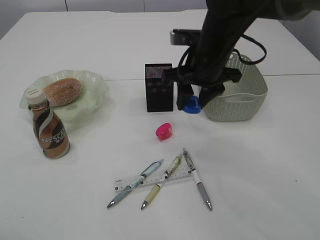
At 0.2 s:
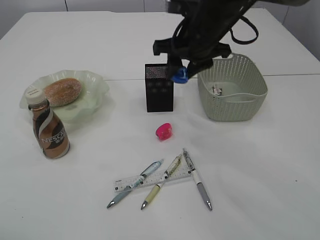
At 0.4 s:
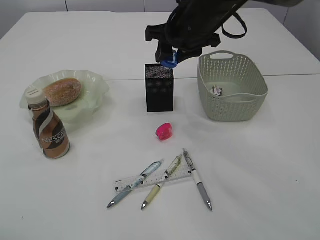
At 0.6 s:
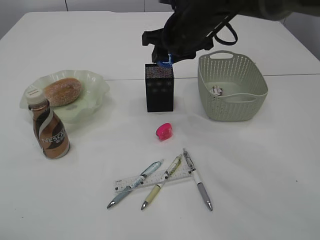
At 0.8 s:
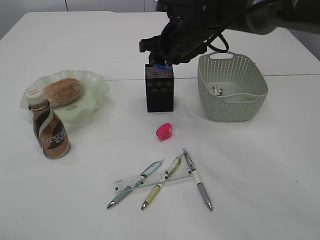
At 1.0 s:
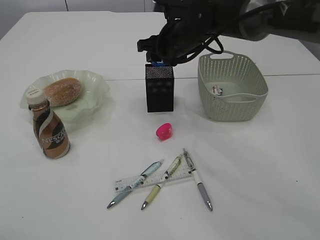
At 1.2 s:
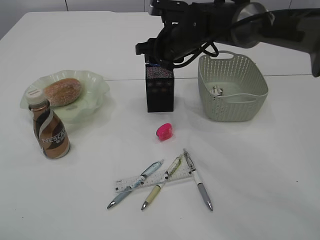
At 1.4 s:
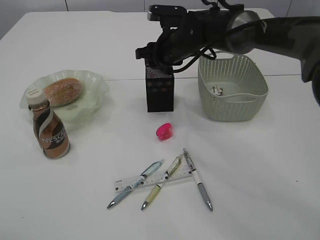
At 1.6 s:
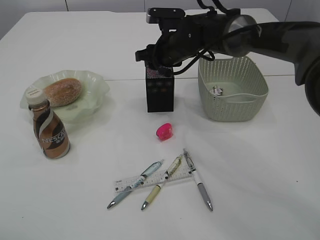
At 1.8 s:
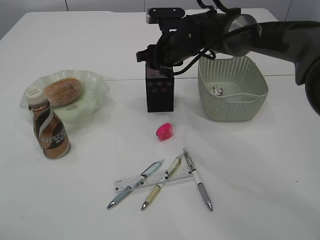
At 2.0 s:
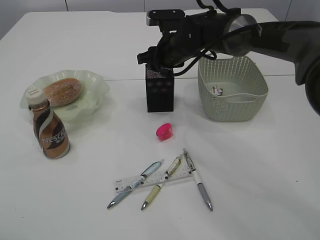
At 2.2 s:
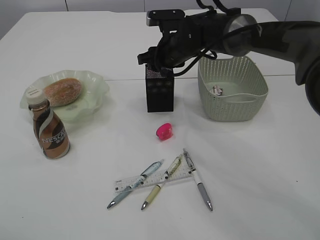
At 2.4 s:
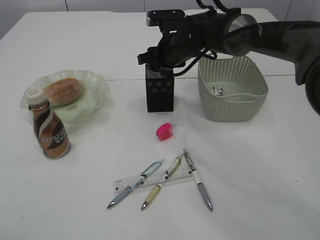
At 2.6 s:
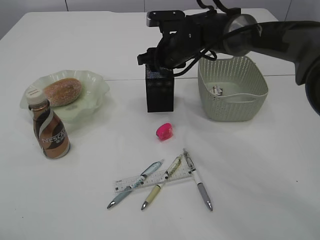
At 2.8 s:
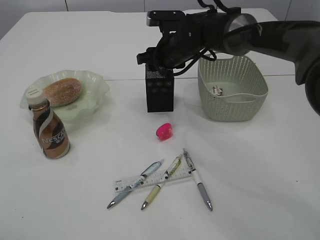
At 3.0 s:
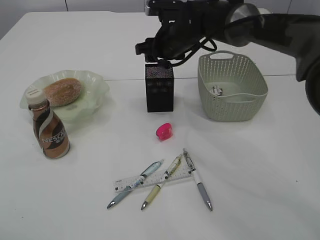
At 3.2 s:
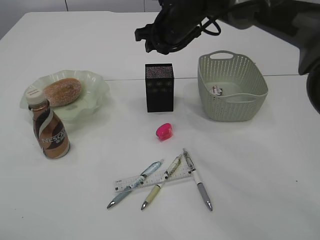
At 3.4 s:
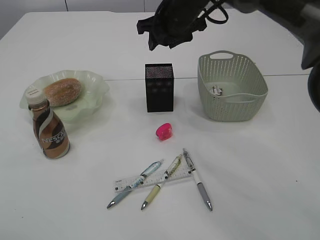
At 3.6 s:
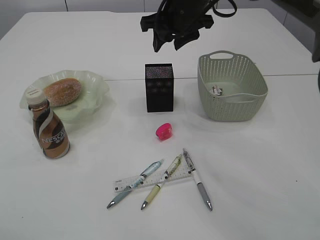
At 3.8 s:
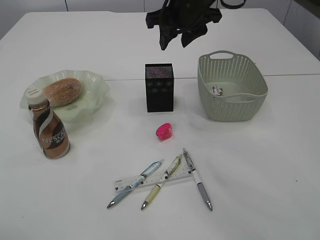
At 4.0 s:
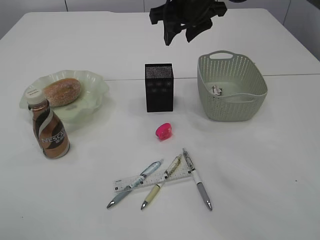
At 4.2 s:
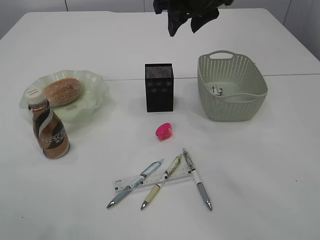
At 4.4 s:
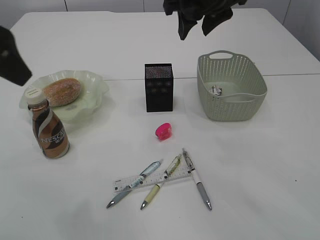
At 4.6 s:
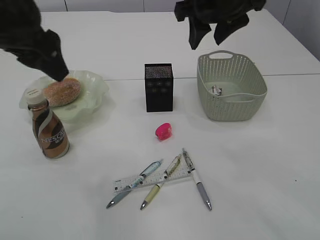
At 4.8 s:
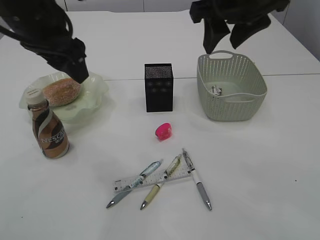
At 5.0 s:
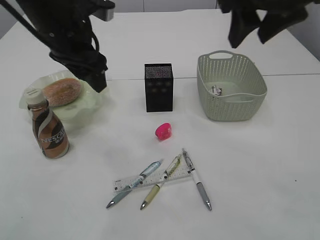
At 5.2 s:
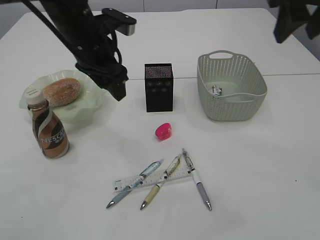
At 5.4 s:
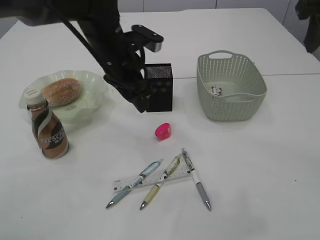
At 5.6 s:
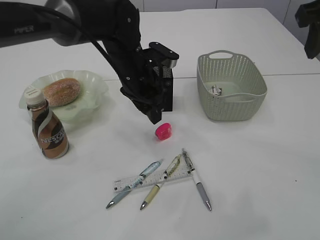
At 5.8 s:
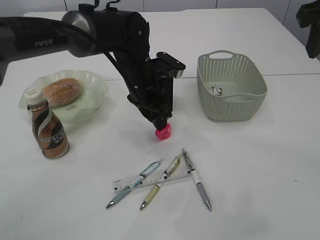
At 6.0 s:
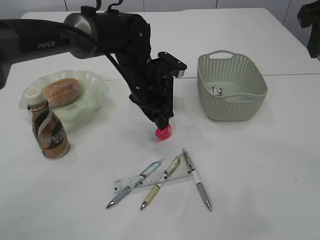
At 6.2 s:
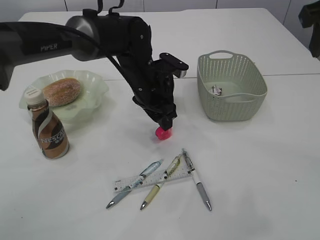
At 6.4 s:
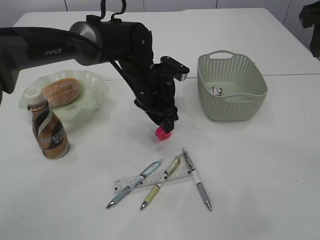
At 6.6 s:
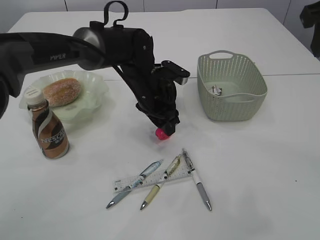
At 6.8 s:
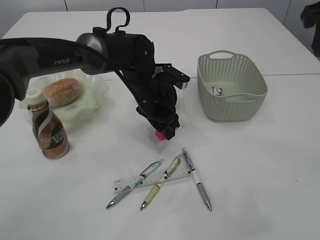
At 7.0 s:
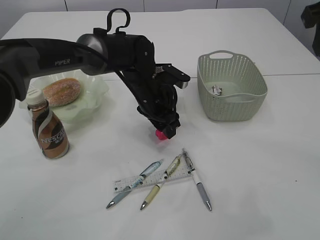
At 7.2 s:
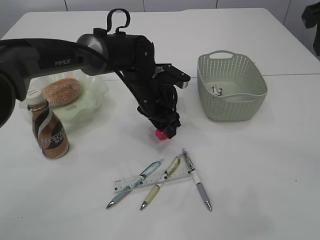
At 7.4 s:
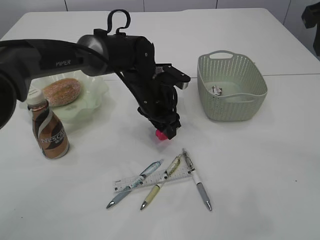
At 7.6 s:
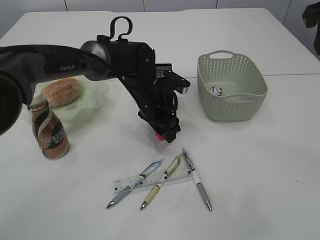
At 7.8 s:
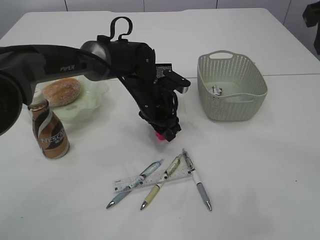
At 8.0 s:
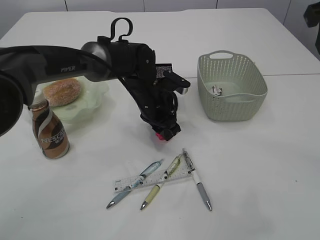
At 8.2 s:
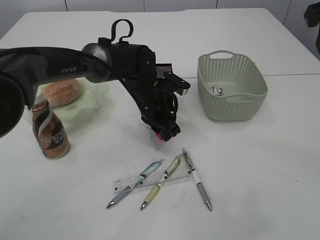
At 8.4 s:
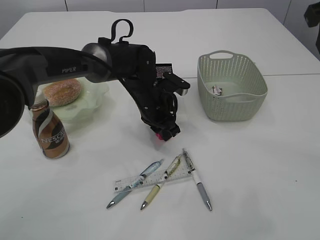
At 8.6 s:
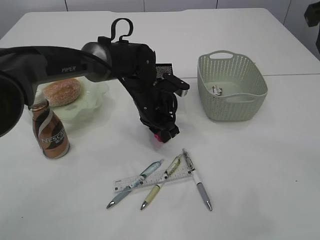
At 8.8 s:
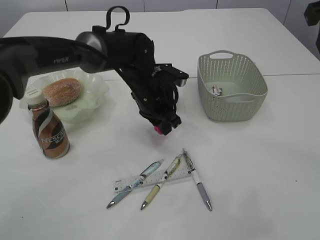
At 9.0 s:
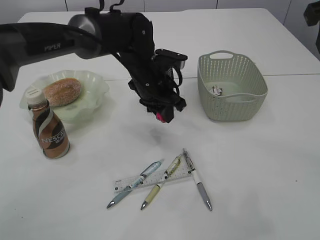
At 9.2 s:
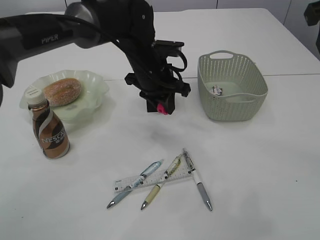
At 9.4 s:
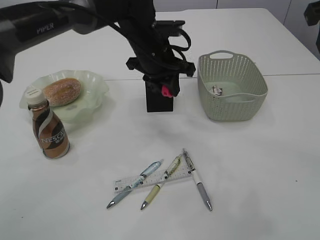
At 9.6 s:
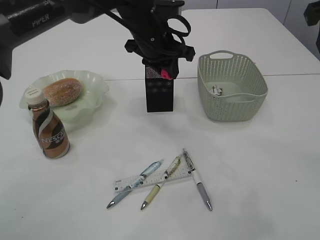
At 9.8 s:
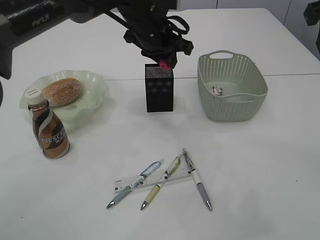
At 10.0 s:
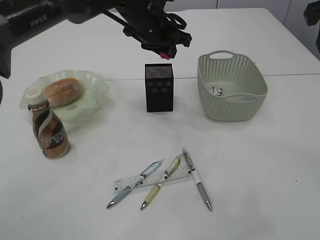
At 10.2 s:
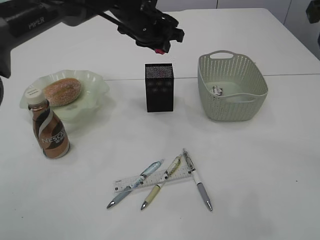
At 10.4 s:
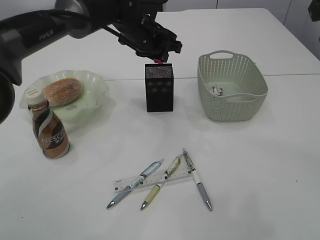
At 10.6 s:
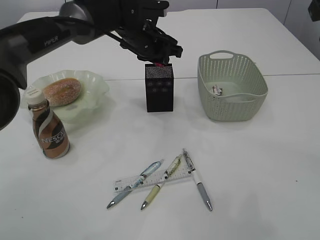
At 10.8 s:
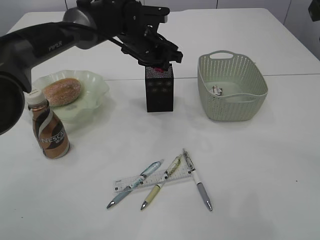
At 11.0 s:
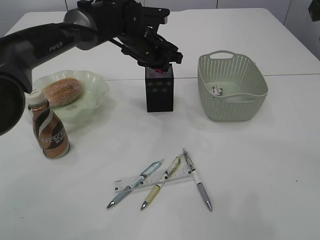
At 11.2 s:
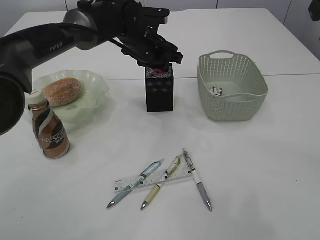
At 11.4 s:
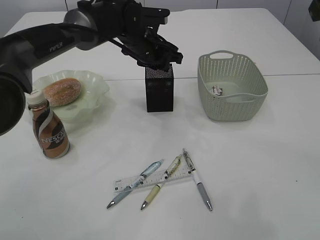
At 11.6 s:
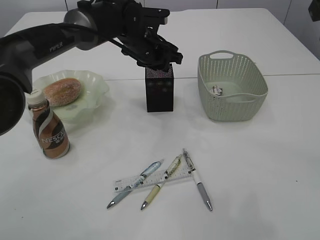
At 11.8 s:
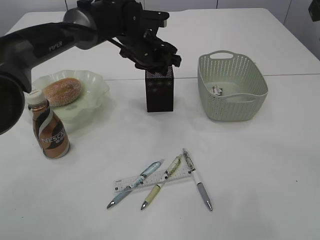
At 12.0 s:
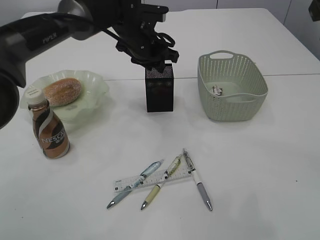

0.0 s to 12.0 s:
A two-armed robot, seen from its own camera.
Step, 0.0 to 3.2 s: Place the blue pencil sharpener into the pen holder.
Step, 3.4 to 9.0 s: Pick up the red pencil sharpener.
0.0 to 1.6 s: The right gripper moves forward, approximately 10 cm.
1.6 to 3.0 s: The grippers stay close to where they were, moving slightly.
3.0 to 4.4 s: The left gripper heads forward and to the right, covering approximately 10 cm, while the right gripper heads upward and backward, covering approximately 15 cm.
4.4 to 6.0 s: The right gripper heads to the right and backward, covering roughly 20 cm, while the left gripper travels downward, to the right and forward by some 30 cm.
6.0 to 7.6 s: The left gripper changes place by roughly 5 cm.
7.6 to 9.0 s: The left gripper closes up.
9.0 to 10.4 s: The left gripper travels forward and upward by some 10 cm.
10.4 to 12.0 s: The grippers move only a little.

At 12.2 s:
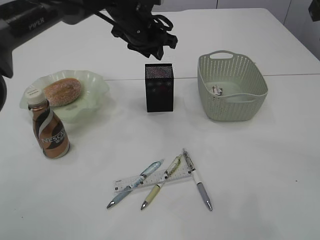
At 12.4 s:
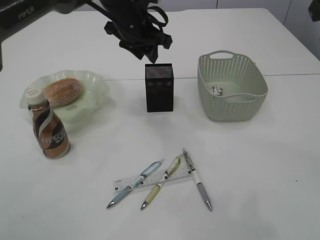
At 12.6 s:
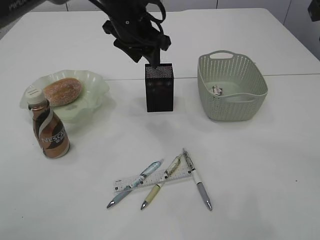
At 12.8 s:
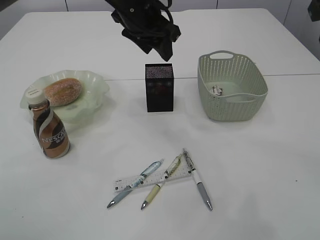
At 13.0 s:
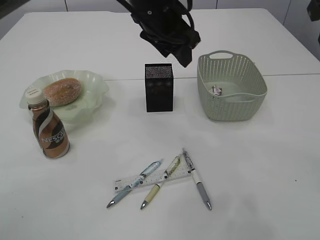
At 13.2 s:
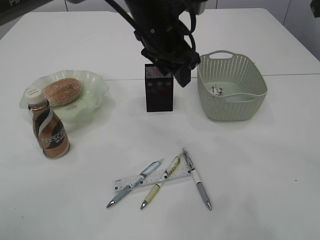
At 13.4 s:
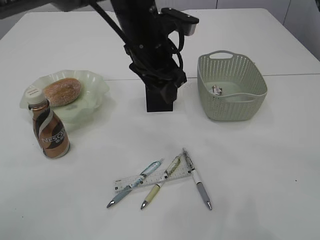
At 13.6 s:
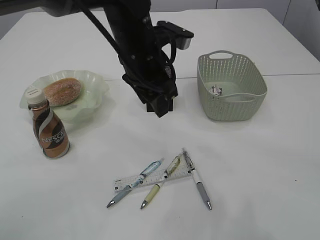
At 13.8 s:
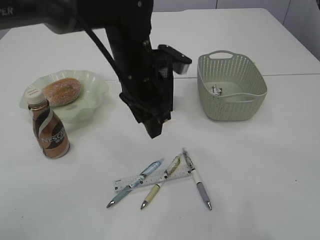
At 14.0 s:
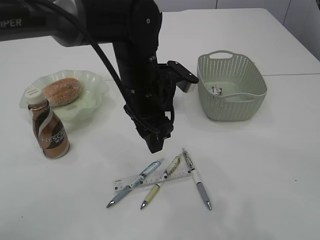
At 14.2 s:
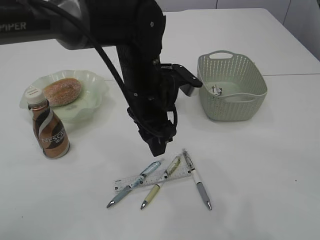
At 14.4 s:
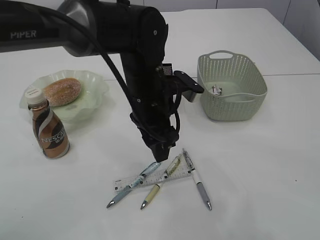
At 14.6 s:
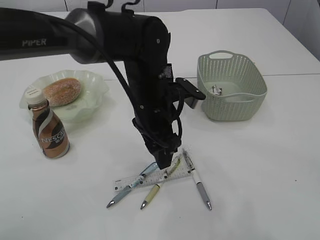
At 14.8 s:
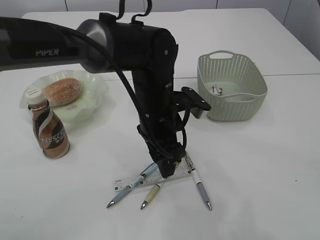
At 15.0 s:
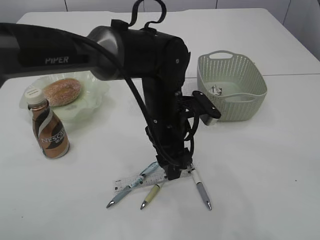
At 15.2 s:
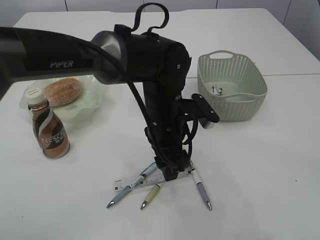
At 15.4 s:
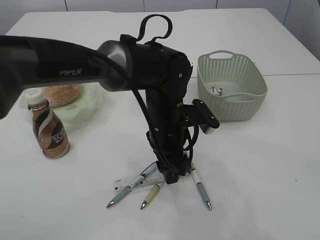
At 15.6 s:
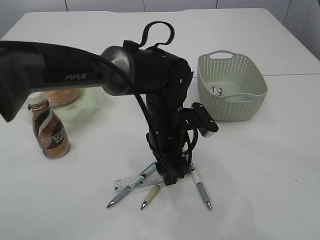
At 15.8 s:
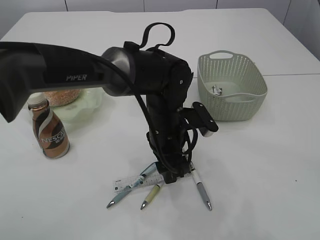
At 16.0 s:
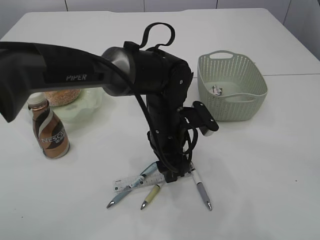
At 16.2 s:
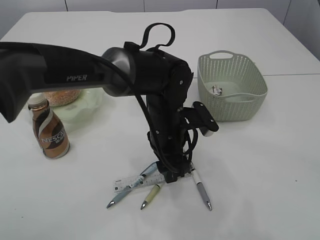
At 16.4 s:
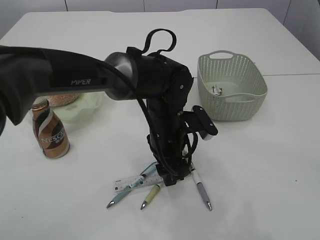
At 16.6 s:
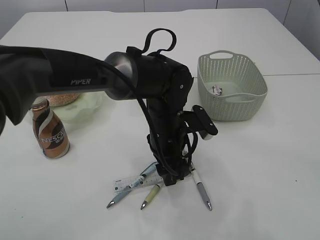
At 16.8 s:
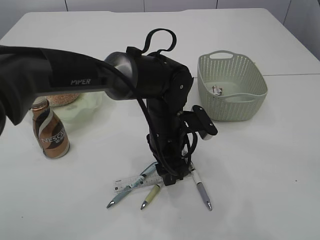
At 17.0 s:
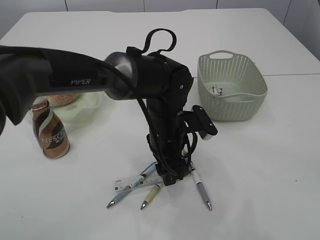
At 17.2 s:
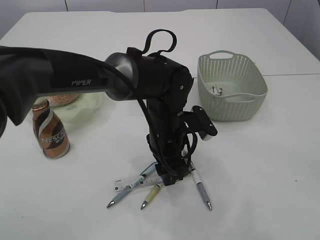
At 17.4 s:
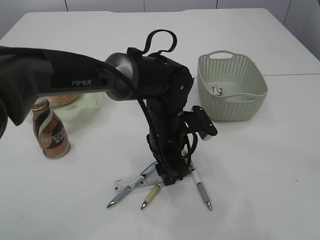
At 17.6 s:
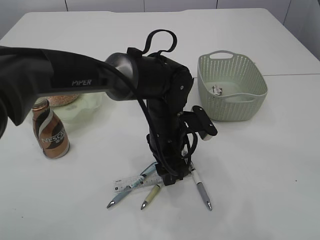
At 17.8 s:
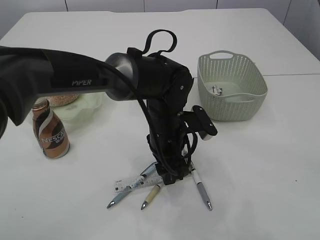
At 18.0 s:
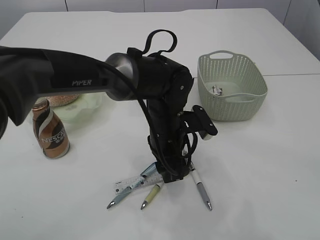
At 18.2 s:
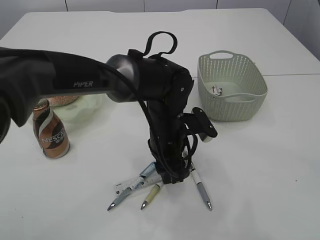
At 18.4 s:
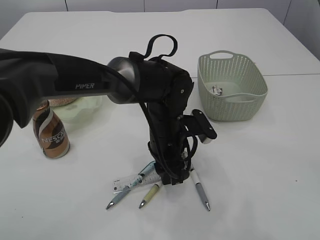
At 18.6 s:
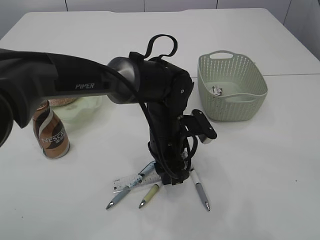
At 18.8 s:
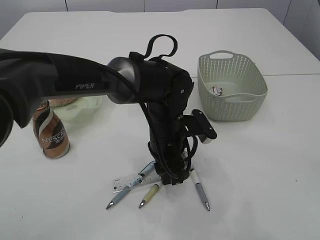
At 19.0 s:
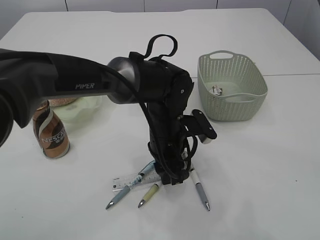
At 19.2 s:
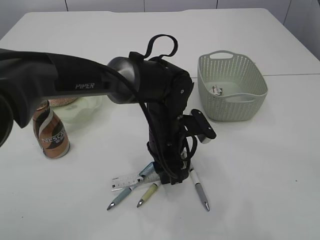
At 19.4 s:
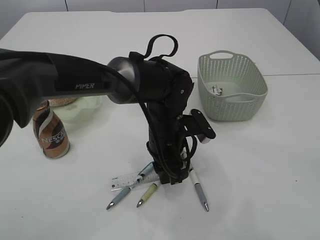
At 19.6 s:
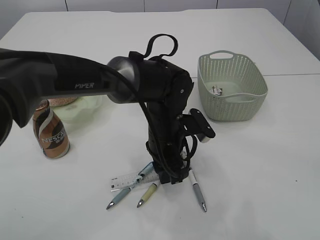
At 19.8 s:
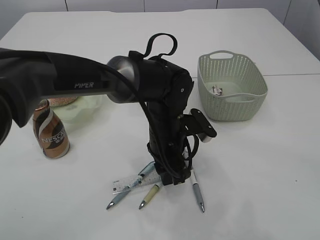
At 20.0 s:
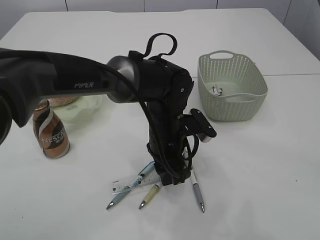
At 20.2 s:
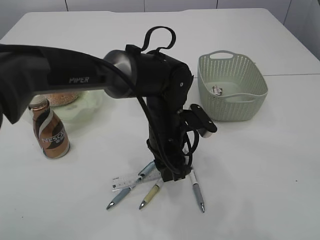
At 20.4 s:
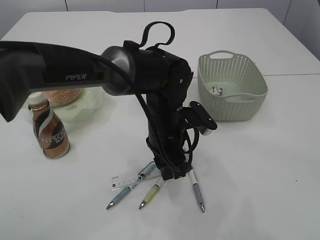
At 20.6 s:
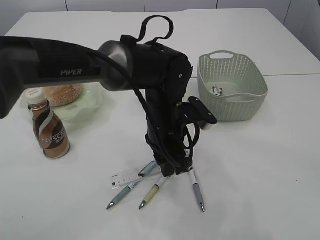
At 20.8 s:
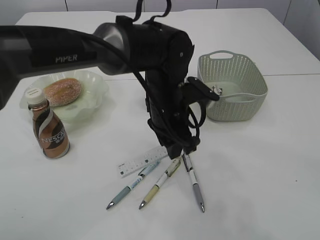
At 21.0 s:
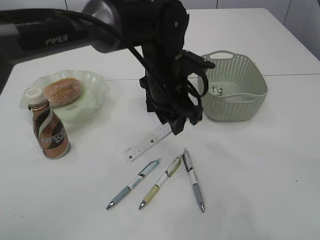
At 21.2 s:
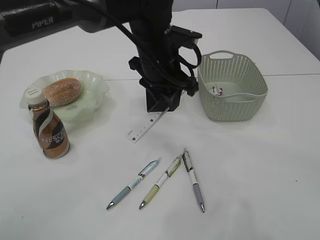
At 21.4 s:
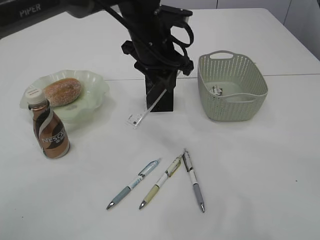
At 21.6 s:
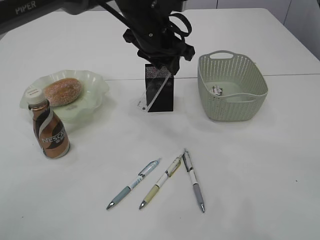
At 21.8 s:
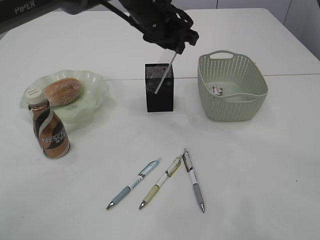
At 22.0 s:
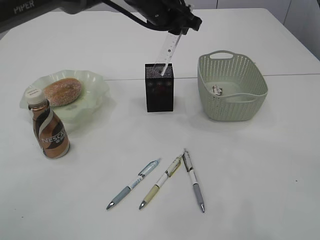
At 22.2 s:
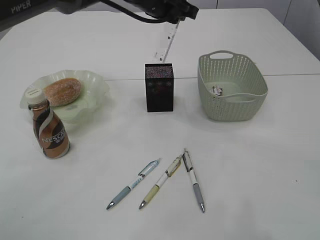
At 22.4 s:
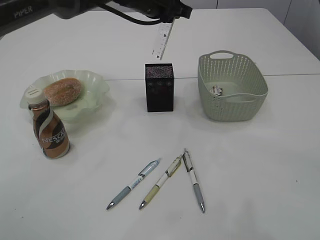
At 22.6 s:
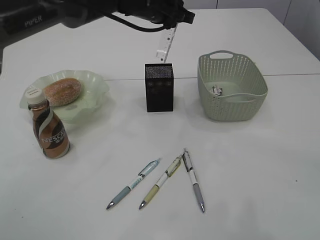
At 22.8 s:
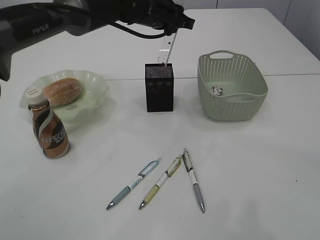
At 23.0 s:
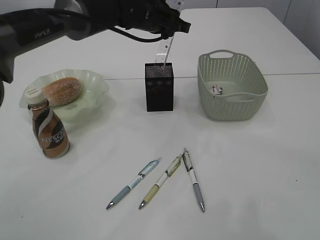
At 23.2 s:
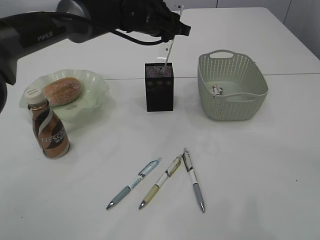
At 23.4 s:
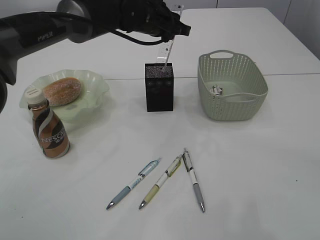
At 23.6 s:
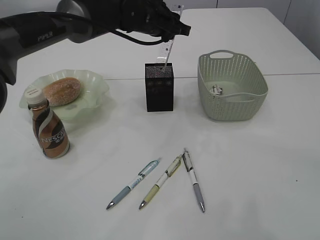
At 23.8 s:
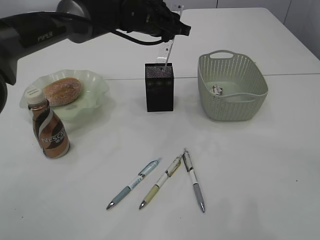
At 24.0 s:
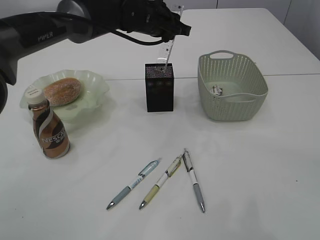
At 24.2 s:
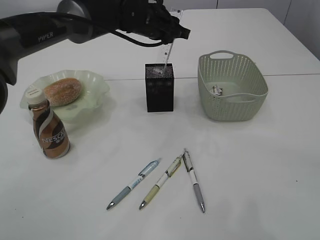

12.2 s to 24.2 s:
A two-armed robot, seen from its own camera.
Step, 12.6 to 20.6 s: pick up the ruler.
12.2 to 13.8 s: The left gripper shifts about 10 cm backward.
13.8 to 15.2 s: The left gripper travels downward by roughly 5 cm.
15.2 to 16.6 s: The grippers move only a little.
16.6 to 19.8 s: Both grippers stay put.
19.8 to 21.2 s: The left gripper heads upward and forward, covering about 15 cm.
21.2 to 22.6 s: The left gripper goes some 10 cm forward.
22.6 to 24.2 s: The grippers stay close to where they were, moving slightly.
